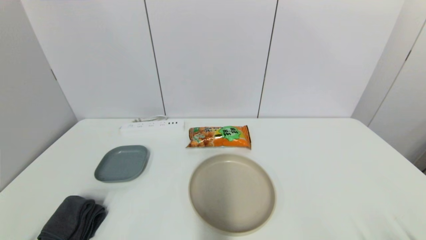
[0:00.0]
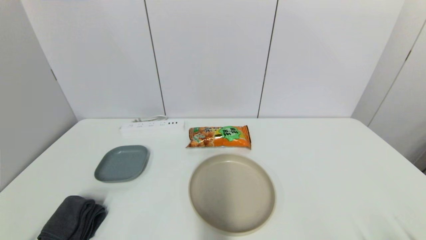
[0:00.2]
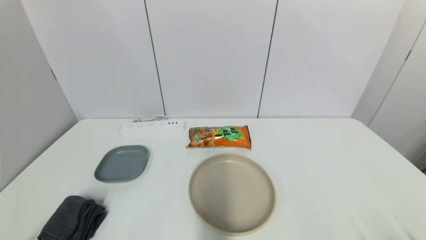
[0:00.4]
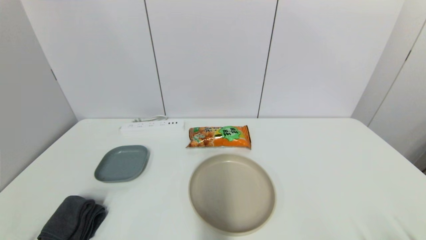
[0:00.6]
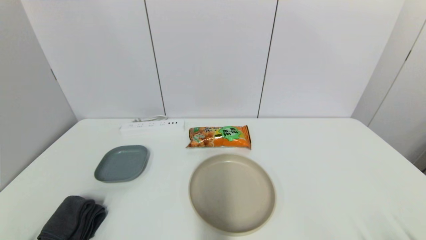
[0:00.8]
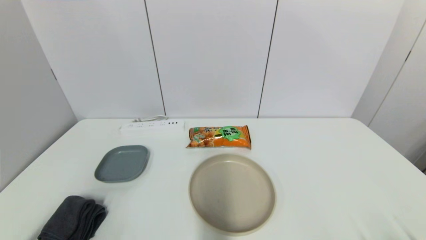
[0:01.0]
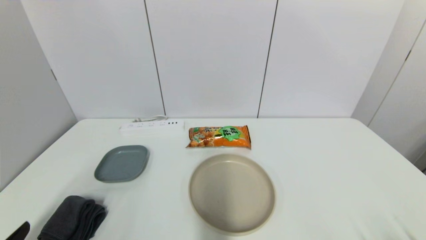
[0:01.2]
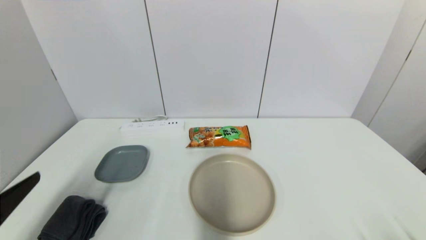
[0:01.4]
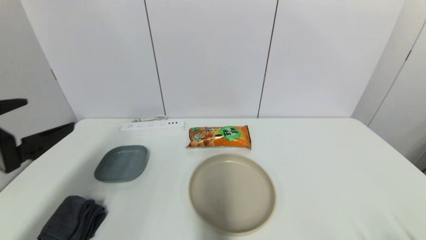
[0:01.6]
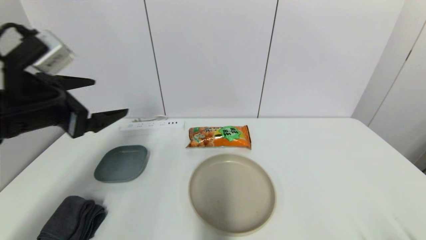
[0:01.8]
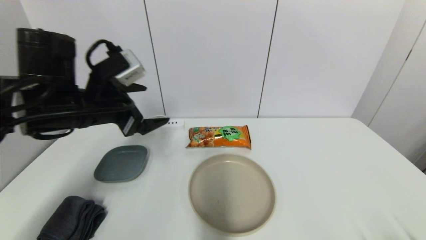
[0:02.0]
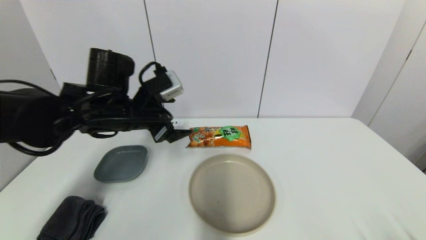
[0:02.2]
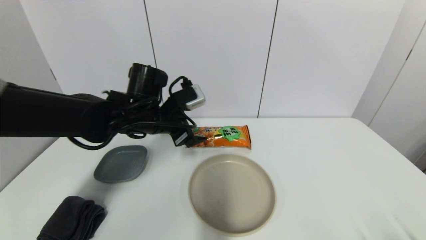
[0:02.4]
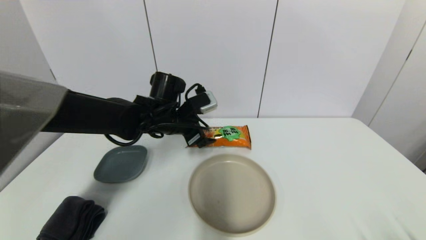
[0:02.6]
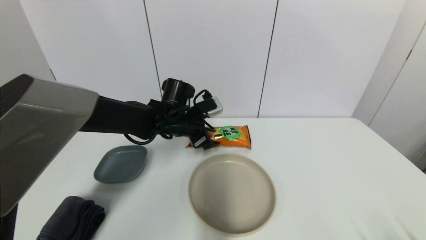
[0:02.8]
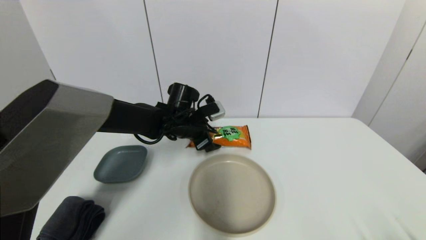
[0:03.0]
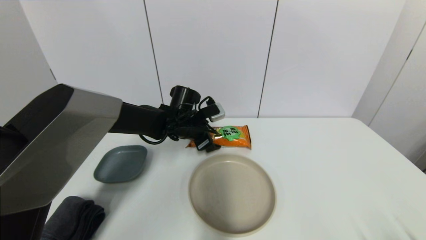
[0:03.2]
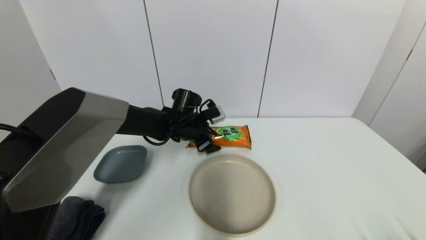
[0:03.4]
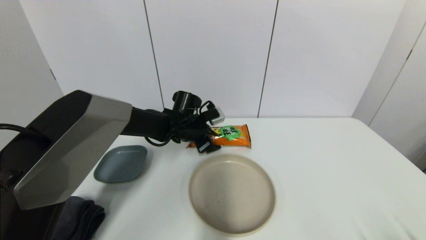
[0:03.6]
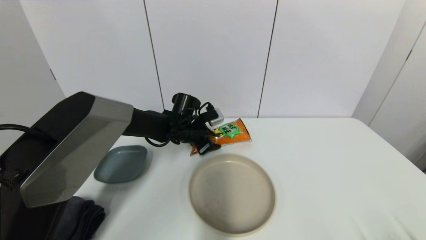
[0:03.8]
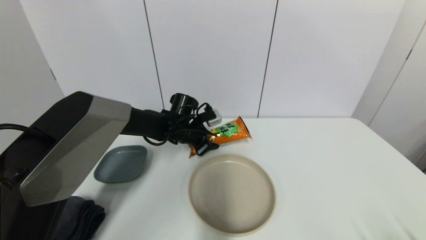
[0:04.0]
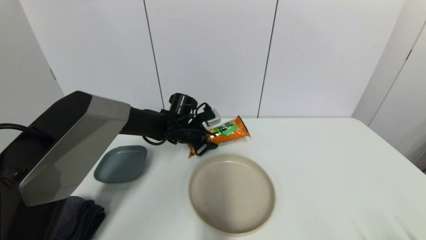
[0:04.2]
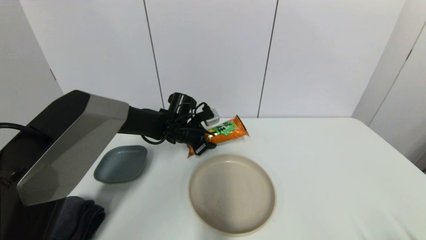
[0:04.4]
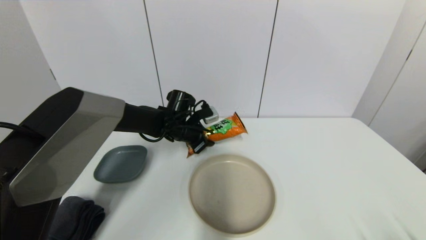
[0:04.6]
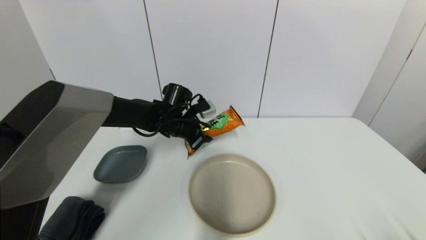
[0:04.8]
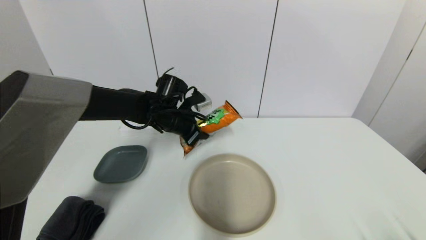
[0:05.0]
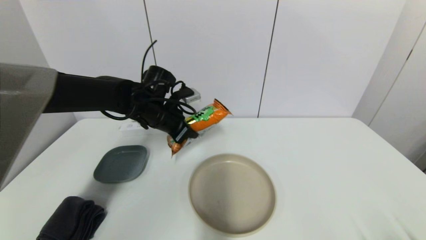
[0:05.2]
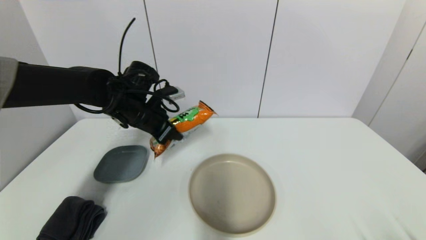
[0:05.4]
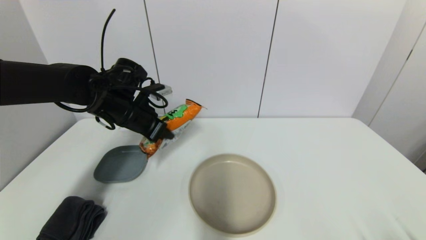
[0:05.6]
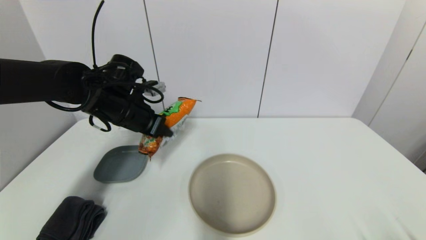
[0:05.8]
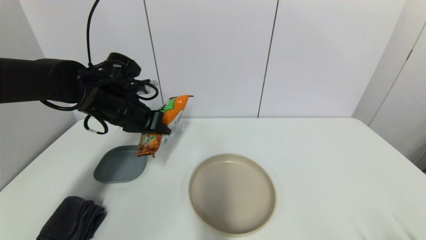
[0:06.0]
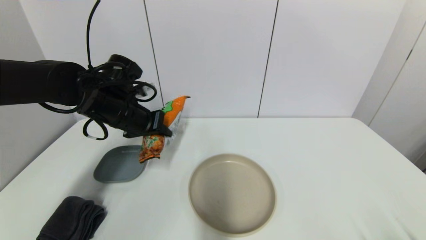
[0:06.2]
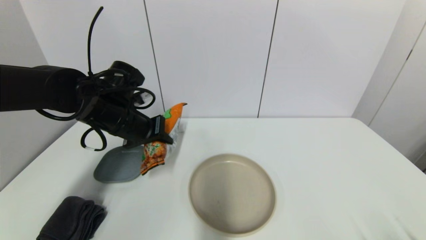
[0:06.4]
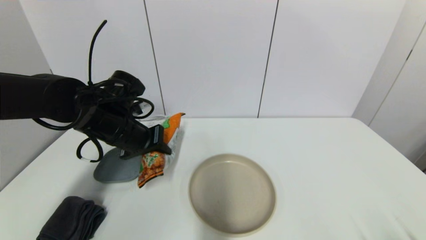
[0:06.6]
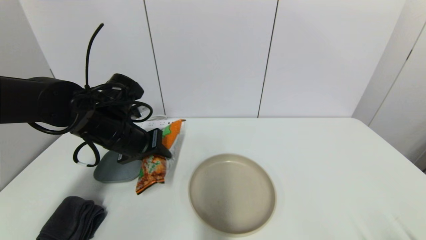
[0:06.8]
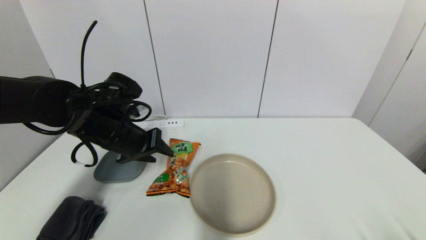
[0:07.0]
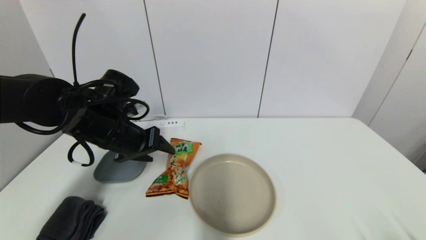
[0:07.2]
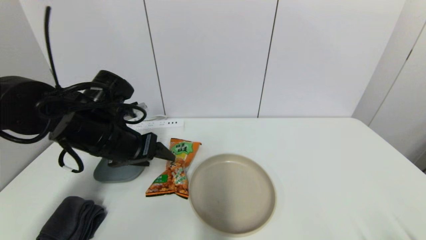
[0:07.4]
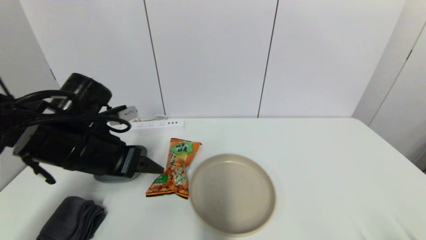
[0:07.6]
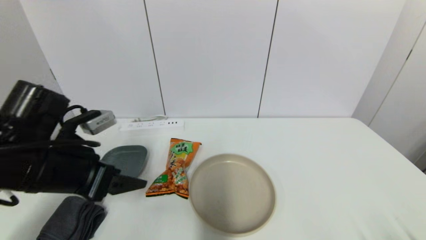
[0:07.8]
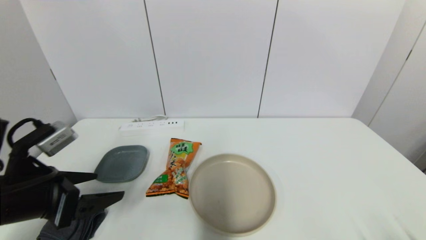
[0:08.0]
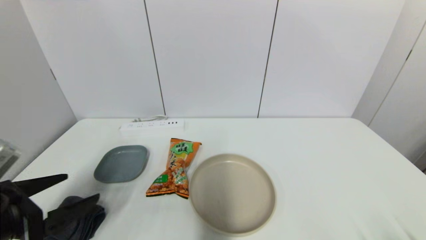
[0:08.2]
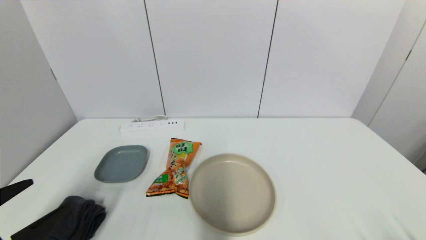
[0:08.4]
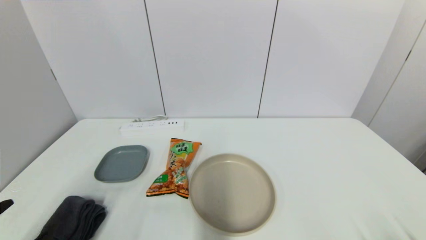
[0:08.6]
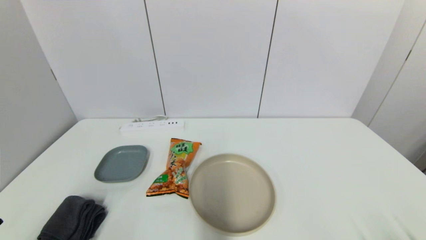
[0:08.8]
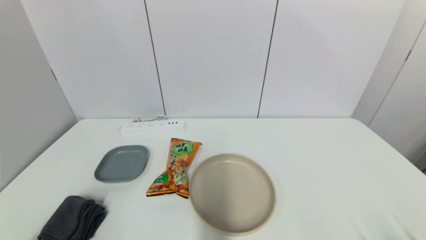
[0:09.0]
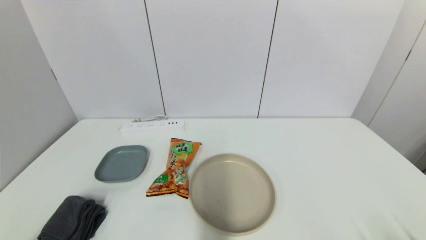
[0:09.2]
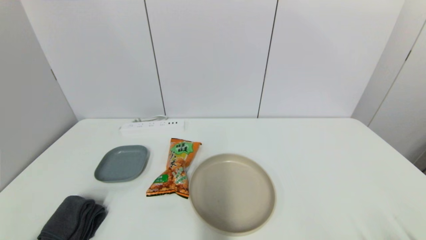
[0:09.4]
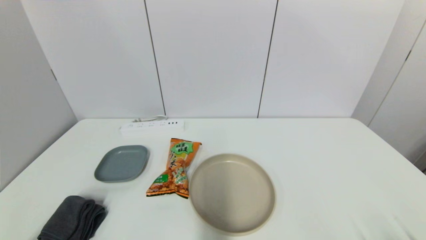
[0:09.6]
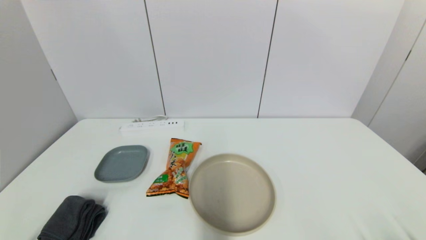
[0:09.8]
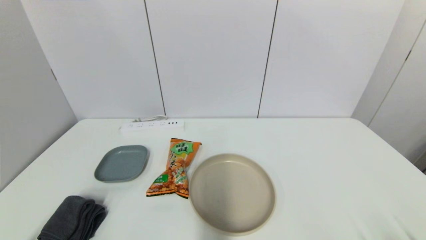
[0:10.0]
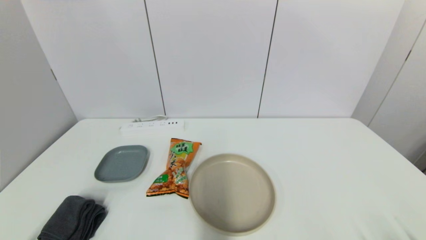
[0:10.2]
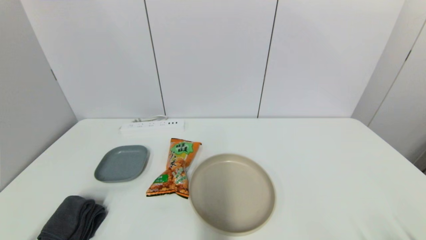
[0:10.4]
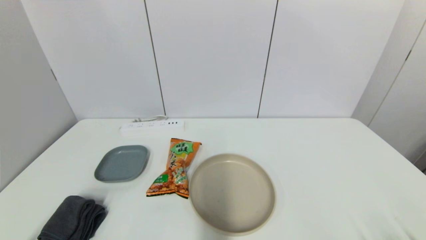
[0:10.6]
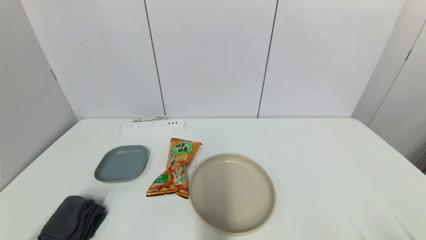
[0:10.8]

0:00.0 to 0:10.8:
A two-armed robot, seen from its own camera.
Step, 0:01.2 to 0:04.4: Grasp the cookie with left gripper.
Step, 0:04.8 to 0:07.4: Place the cookie on the table with left gripper.
0:00.0 to 0:01.6: The left gripper shifts approximately 25 cm upward and forward.
0:01.6 to 0:03.0: The left gripper shifts about 35 cm forward, to the right and downward.
0:03.0 to 0:04.6: The left gripper closes its fingers.
0:04.6 to 0:06.2: The left gripper is displaced upward, to the left and backward by some 15 cm.
0:06.2 to 0:07.8: The left gripper goes some 15 cm backward, and opens up.
0:07.8 to 0:09.2: The left gripper travels backward and downward by approximately 25 cm.
